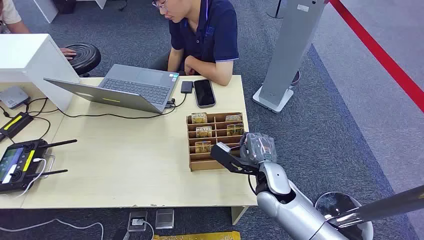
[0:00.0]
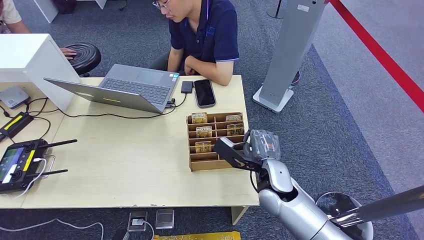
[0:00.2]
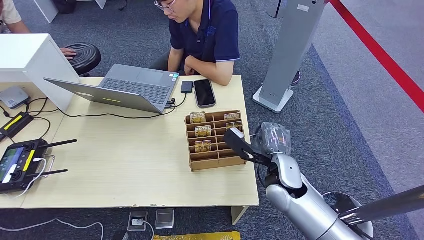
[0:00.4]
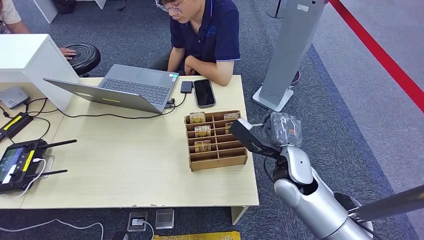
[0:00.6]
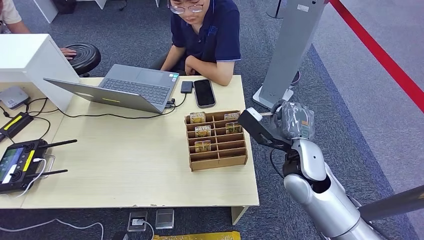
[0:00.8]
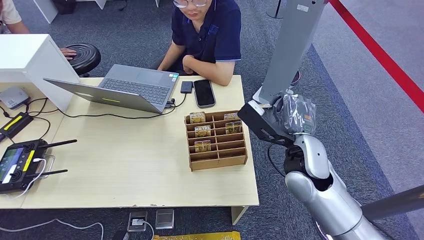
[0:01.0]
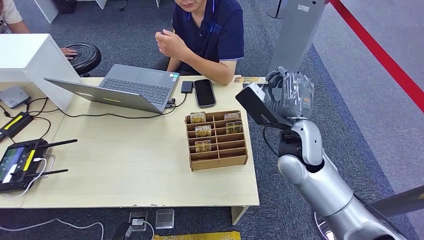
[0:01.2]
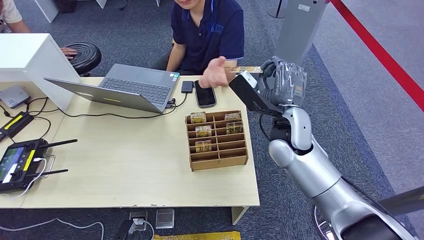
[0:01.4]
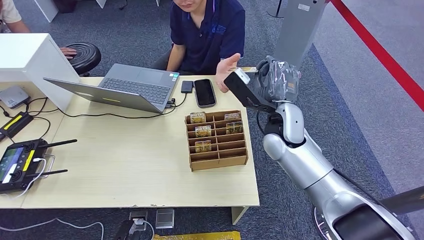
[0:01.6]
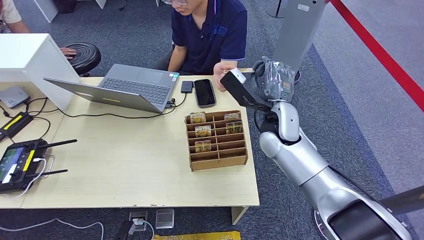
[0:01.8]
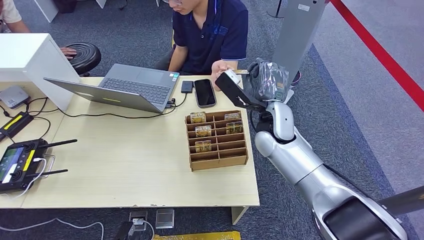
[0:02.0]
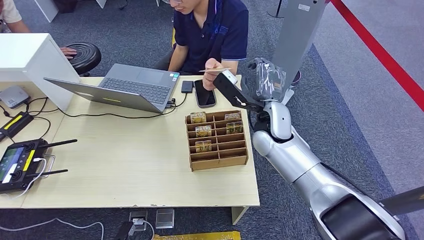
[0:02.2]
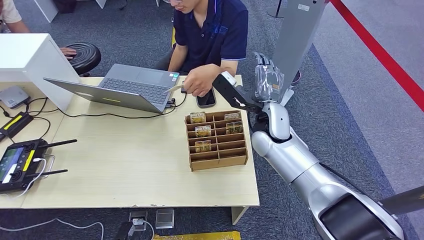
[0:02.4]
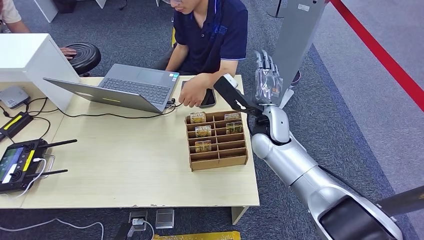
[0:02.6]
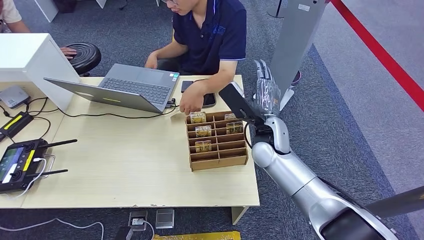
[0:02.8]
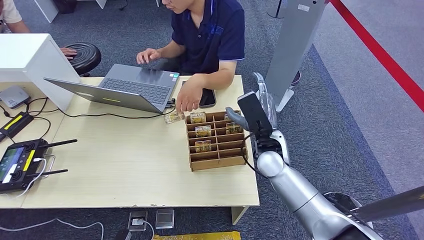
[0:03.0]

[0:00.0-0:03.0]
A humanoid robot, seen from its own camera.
Step, 0:00.0 to 0:01.2: Pick up the key card from the card box.
Step, 0:01.4 to 0:03.0: Hand the key card to the target.
0:01.6 to 0:03.0: The right hand travels downward by about 5 cm.

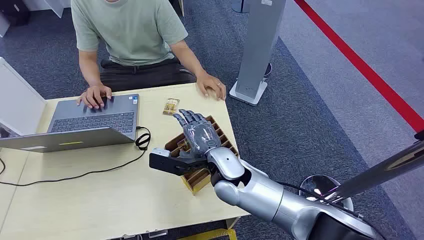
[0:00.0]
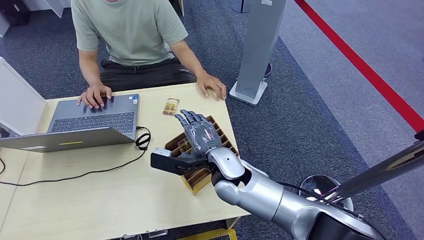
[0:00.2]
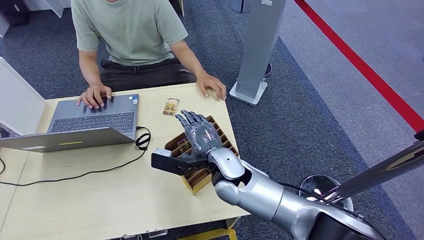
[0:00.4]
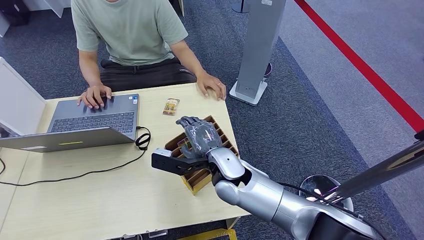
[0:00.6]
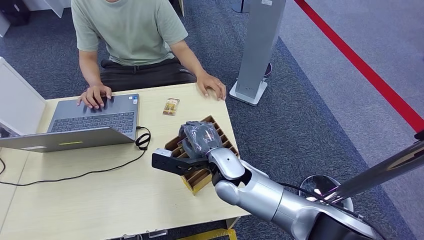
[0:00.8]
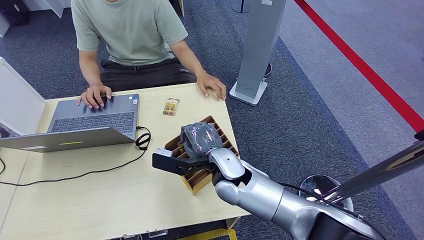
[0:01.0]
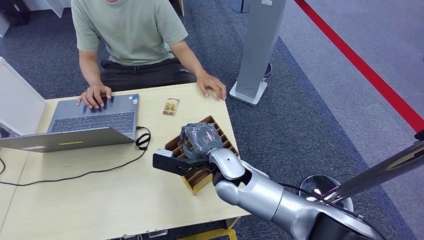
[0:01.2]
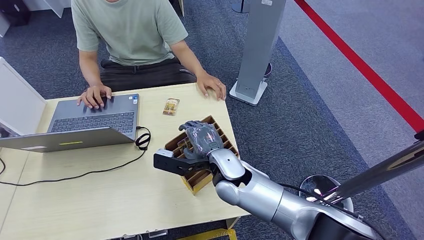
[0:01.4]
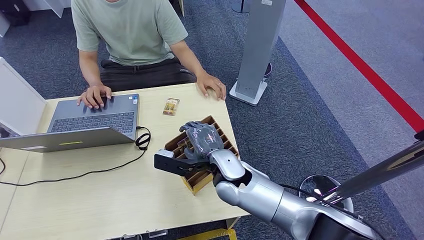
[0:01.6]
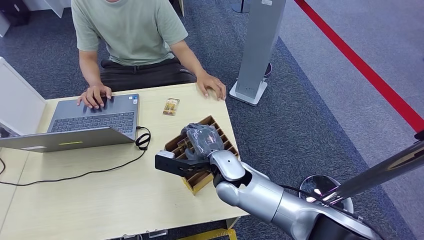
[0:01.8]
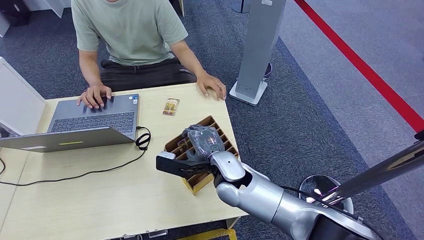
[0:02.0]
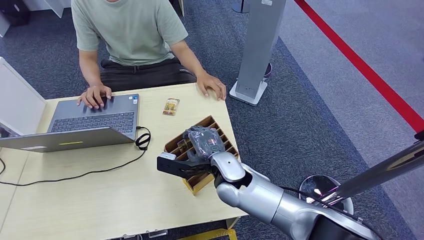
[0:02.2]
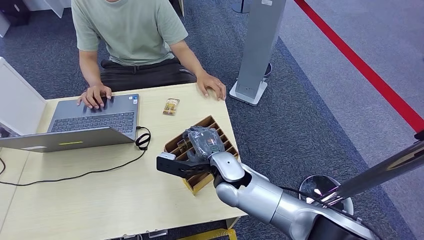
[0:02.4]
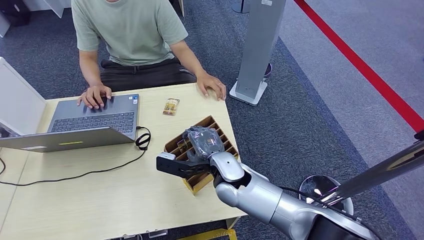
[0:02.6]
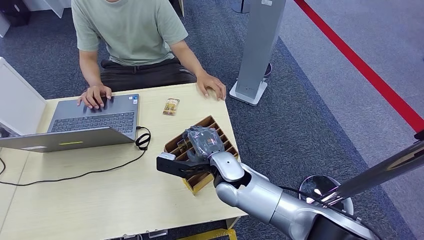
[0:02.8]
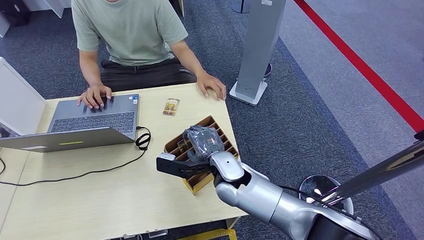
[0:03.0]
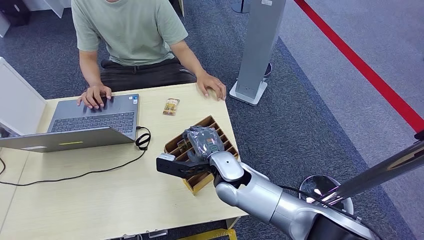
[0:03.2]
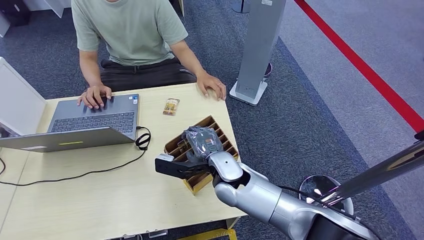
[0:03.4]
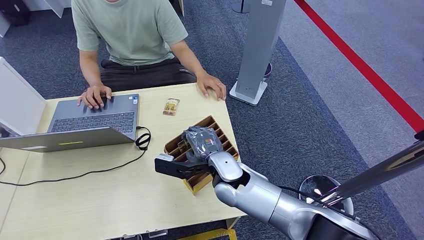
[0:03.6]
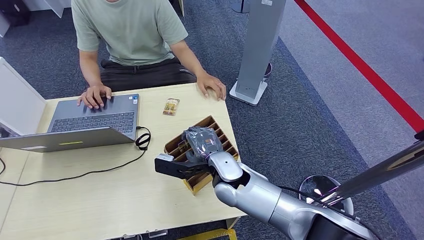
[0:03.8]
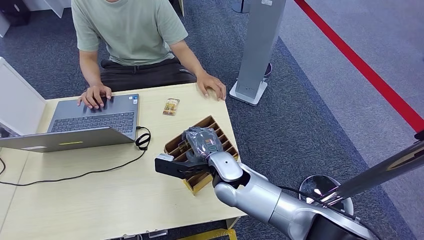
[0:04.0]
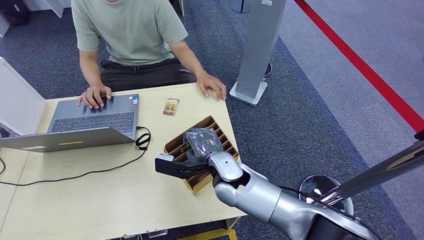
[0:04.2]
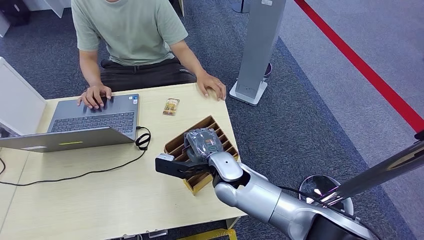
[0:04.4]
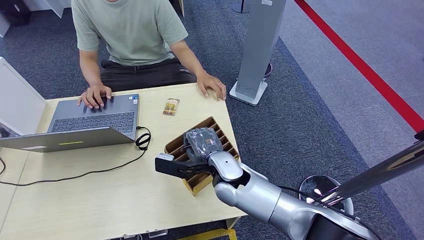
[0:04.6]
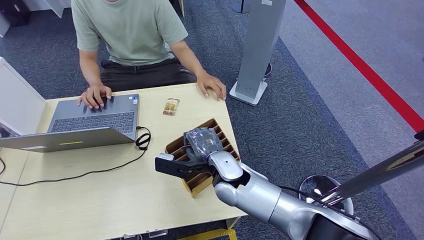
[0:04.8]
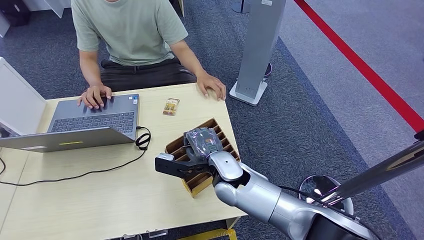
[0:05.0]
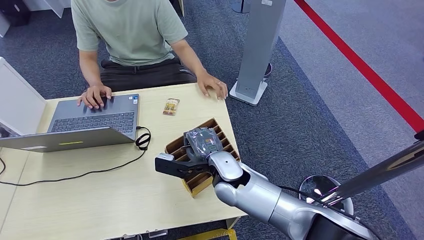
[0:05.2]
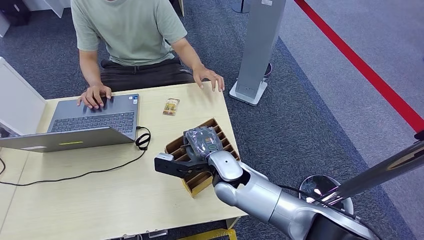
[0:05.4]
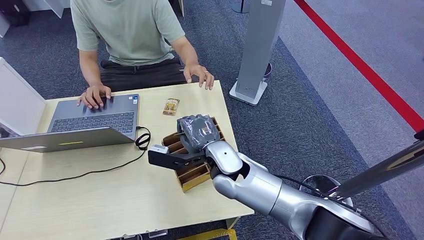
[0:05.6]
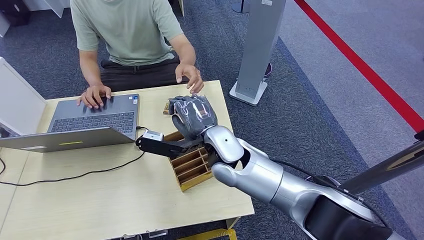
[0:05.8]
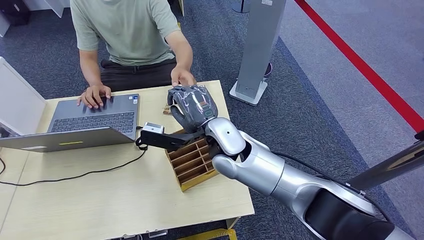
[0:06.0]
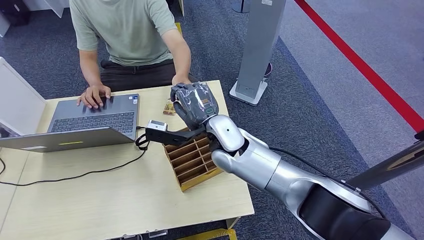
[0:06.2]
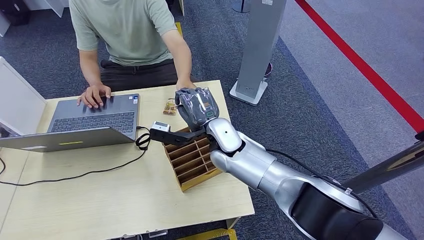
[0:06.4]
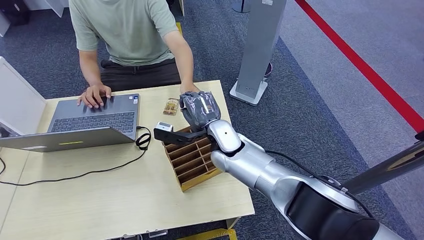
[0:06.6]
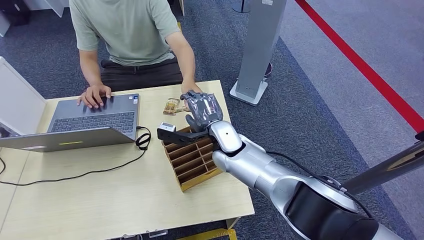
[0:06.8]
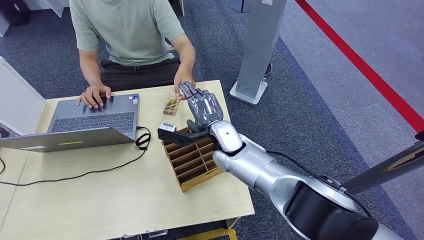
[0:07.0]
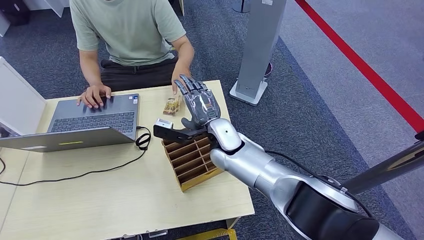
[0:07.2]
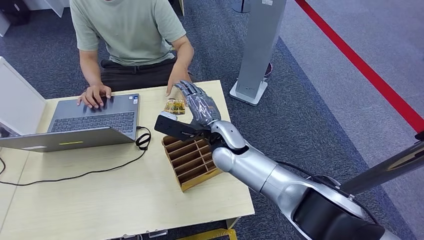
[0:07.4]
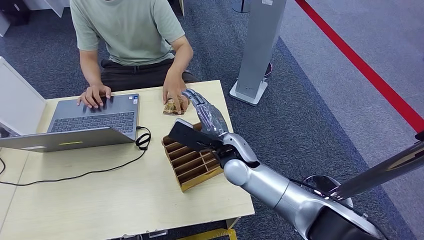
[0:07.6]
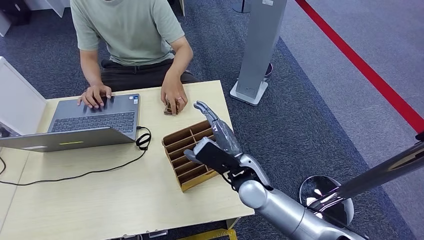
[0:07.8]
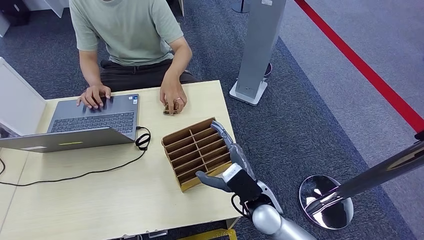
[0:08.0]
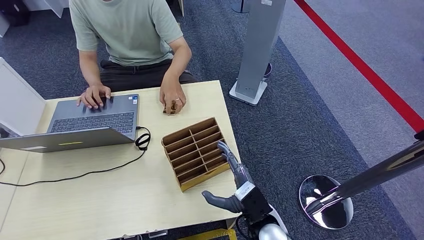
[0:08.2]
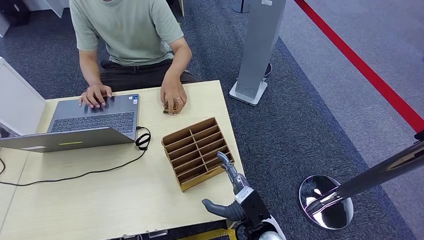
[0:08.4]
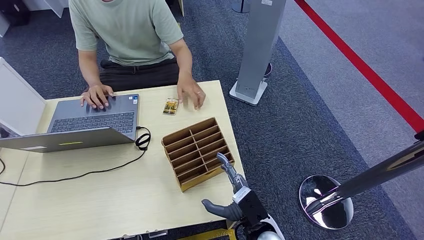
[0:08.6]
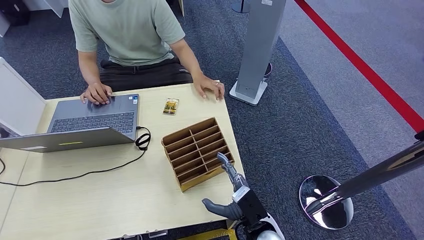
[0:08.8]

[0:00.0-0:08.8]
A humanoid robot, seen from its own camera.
Step, 0:00.0 to 0:05.4: Pick up the key card from the card box.
Step, 0:05.8 to 0:08.6: Hand the key card to the target.
0:01.4 to 0:03.0: The hands make only small movements.
0:03.0 to 0:04.4: The two hands keep their place.
0:04.4 to 0:05.8: The right hand goes some 10 cm upward.
0:07.4 to 0:08.8: The right hand goes about 25 cm backward, downward and to the right.
